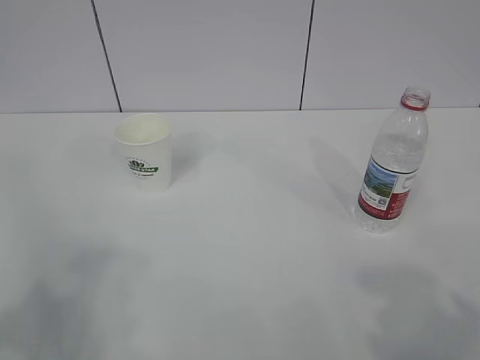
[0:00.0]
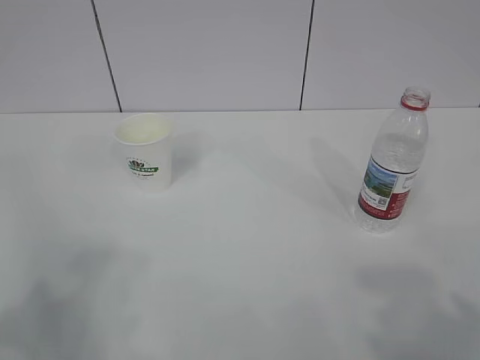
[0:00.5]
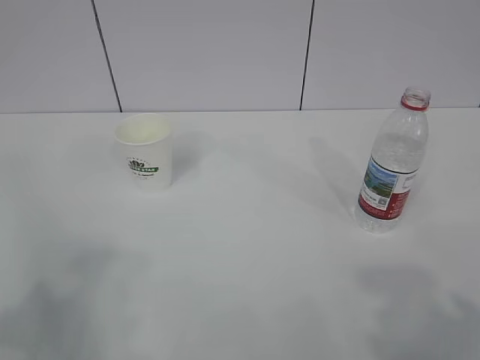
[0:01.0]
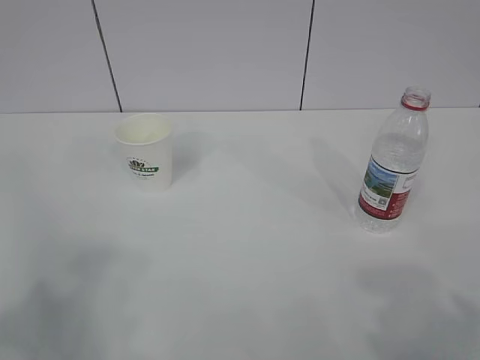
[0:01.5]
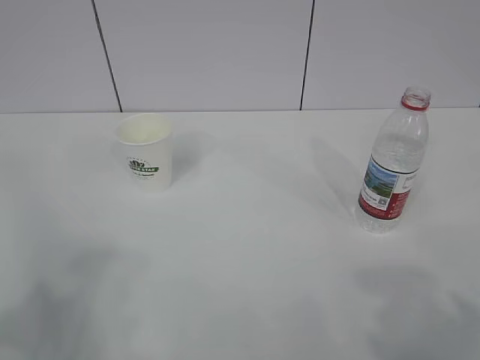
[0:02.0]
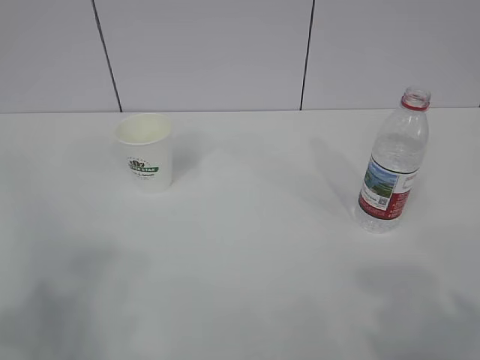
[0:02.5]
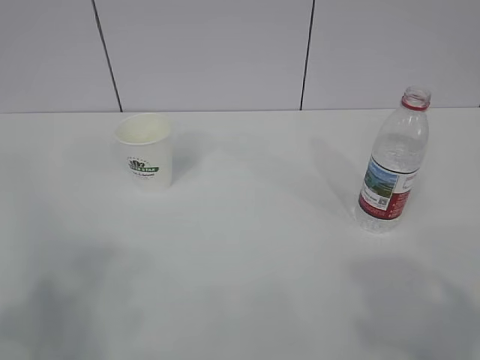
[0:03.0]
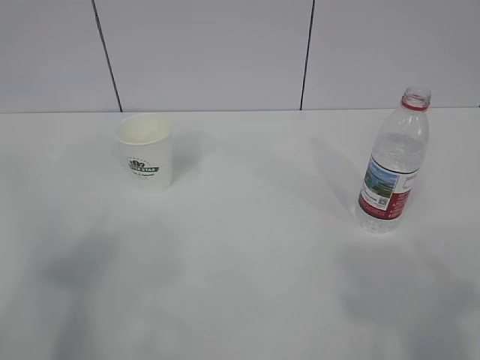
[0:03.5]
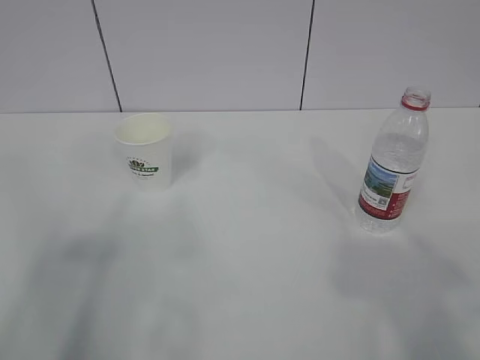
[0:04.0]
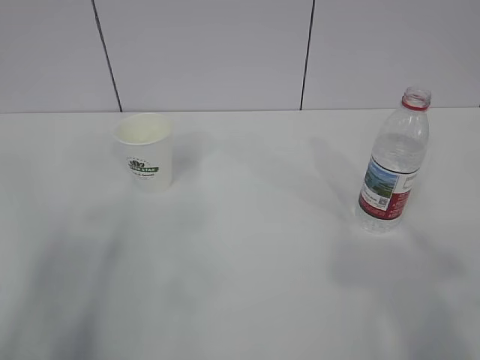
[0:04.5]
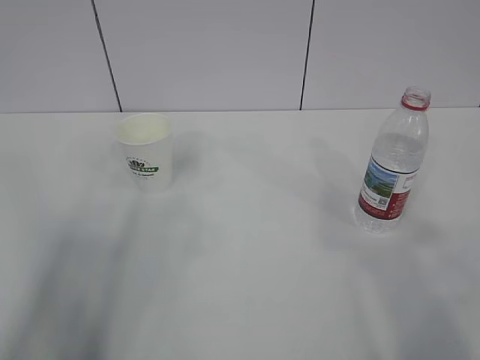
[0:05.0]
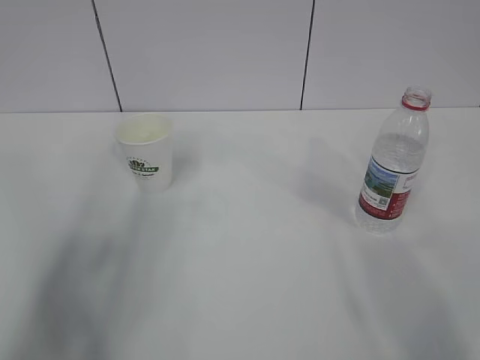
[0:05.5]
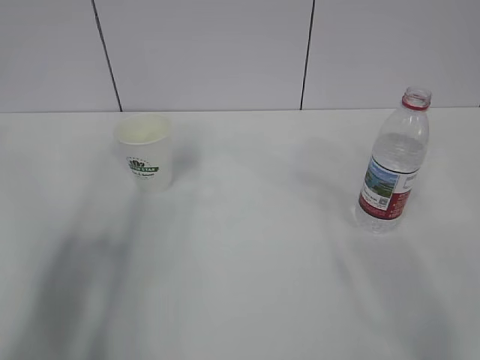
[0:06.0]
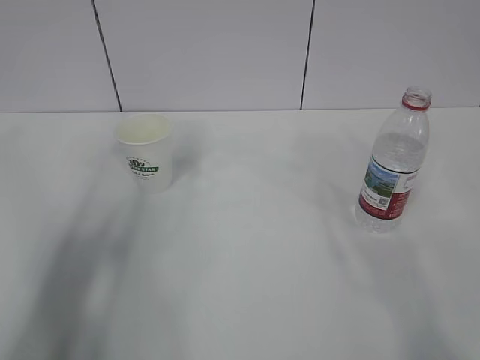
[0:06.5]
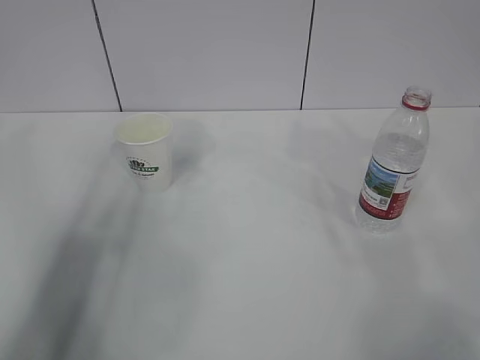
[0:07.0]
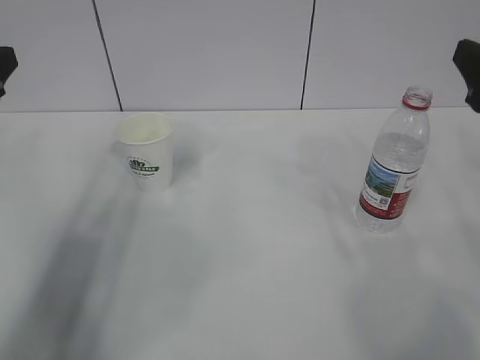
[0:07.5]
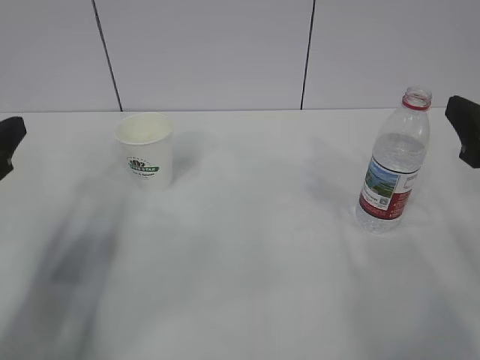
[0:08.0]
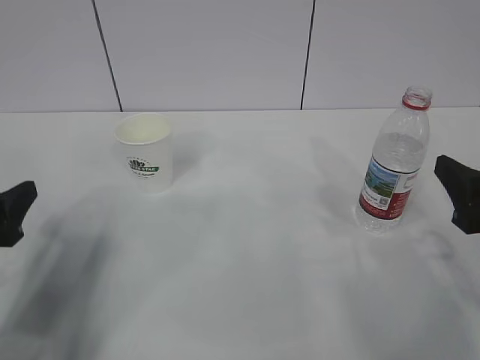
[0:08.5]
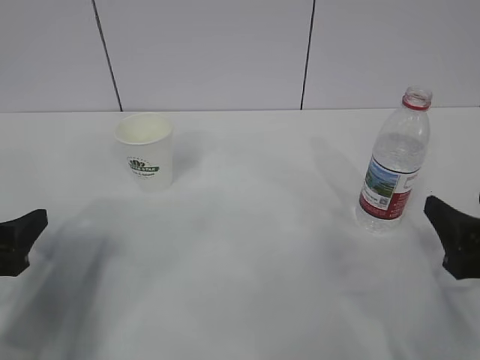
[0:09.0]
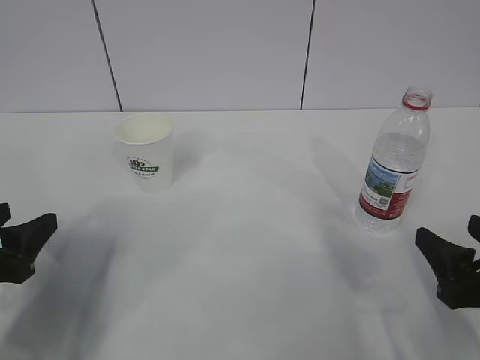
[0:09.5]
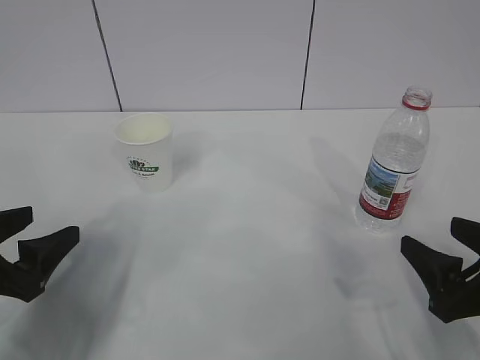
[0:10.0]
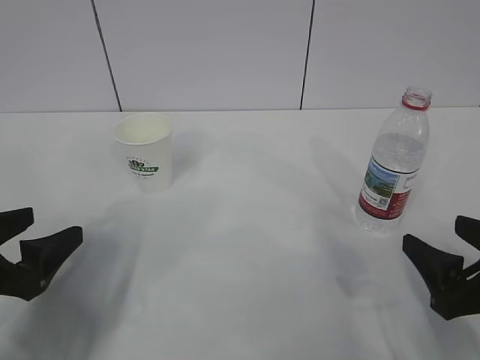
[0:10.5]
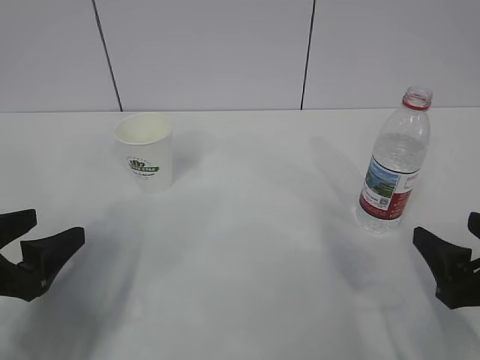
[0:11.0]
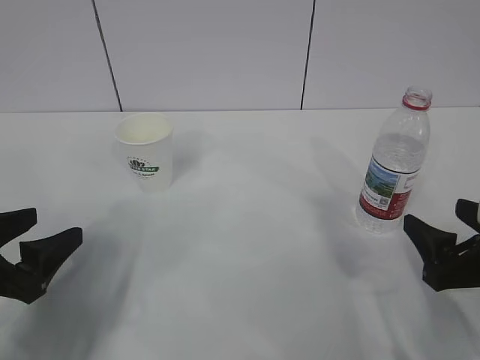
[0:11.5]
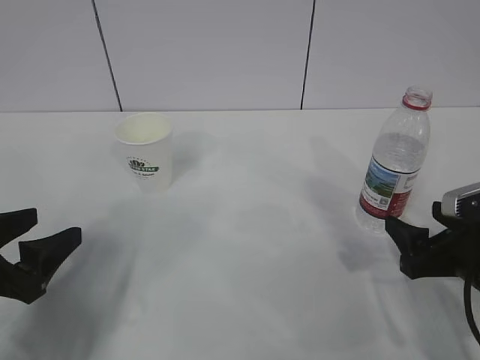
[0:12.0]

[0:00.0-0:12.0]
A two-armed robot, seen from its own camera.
0:04.0 to 0:06.0: The left gripper shifts about 20 cm forward.
0:06.0 to 0:08.0: The grippers both shift downward and forward by approximately 15 cm.
0:08.0 to 0:10.0: The right gripper travels downward and backward by roughly 10 cm, while the left gripper goes roughly 10 cm downward.
0:10.0 to 0:12.0: The right gripper moves forward, approximately 5 cm.

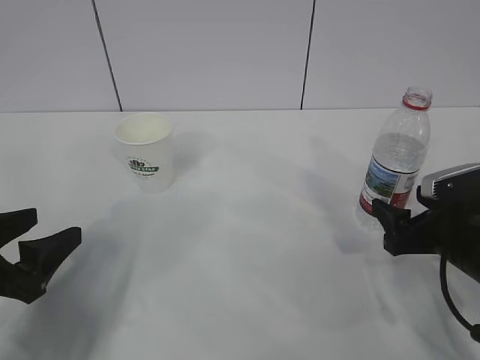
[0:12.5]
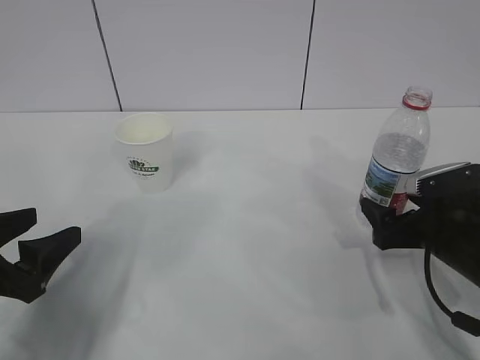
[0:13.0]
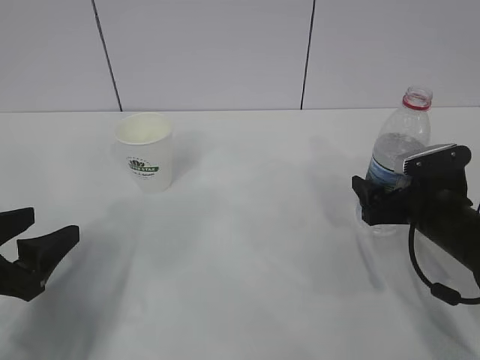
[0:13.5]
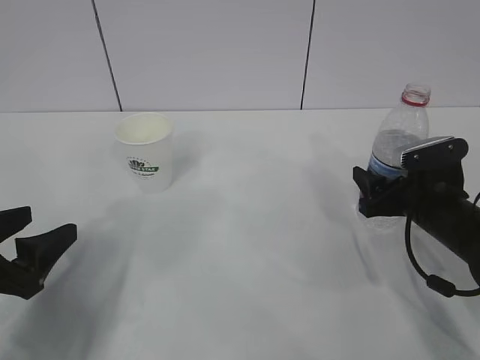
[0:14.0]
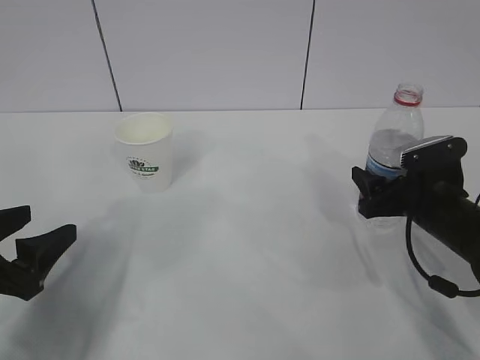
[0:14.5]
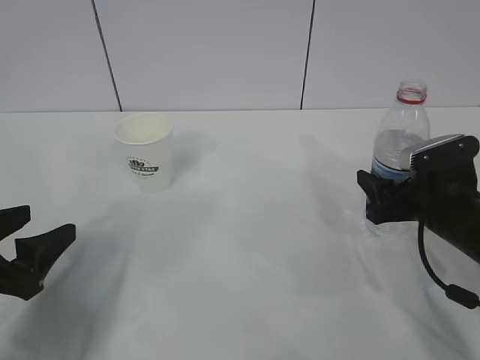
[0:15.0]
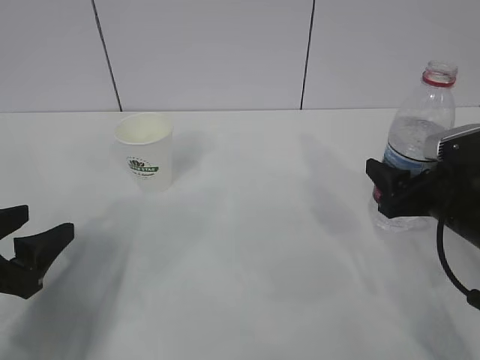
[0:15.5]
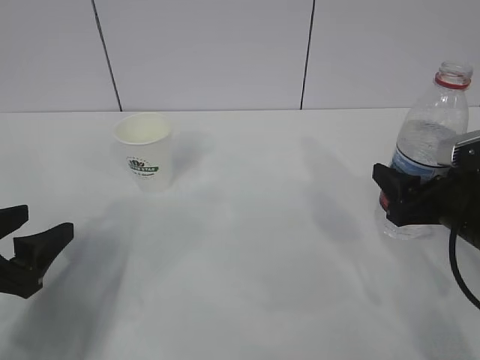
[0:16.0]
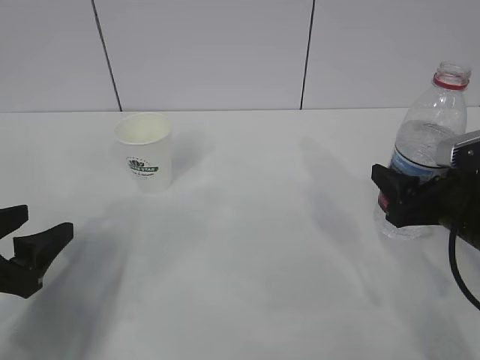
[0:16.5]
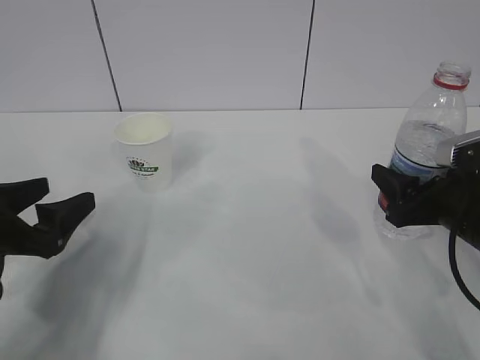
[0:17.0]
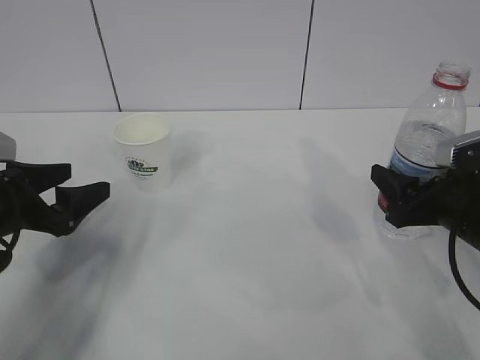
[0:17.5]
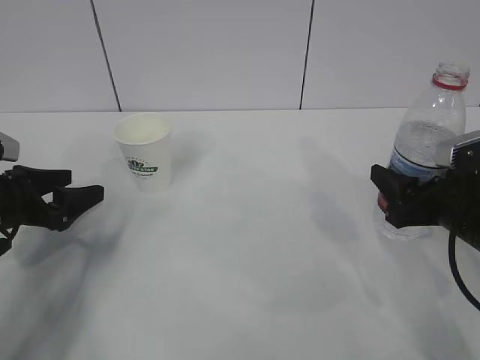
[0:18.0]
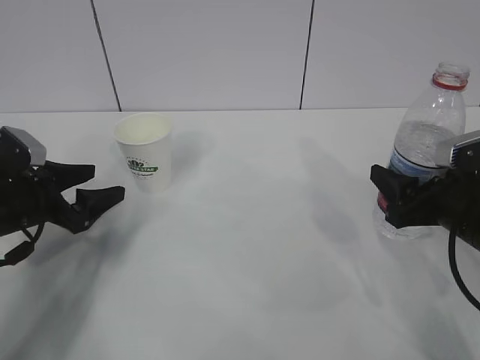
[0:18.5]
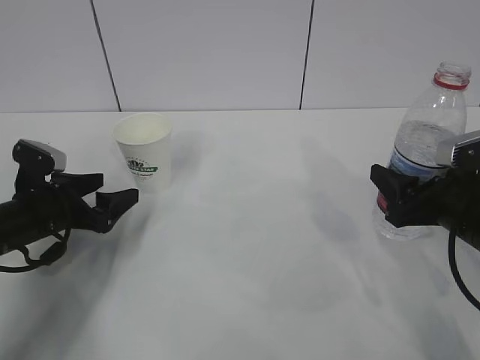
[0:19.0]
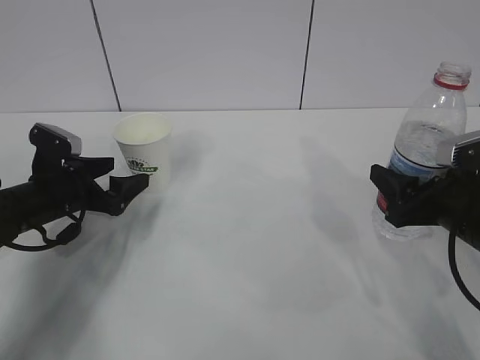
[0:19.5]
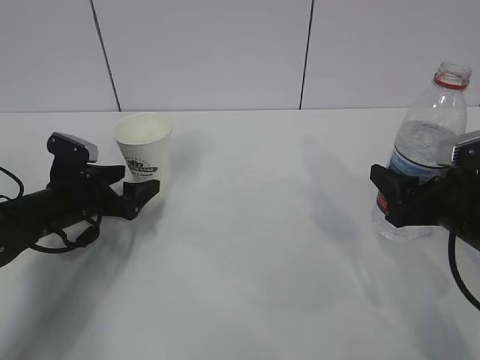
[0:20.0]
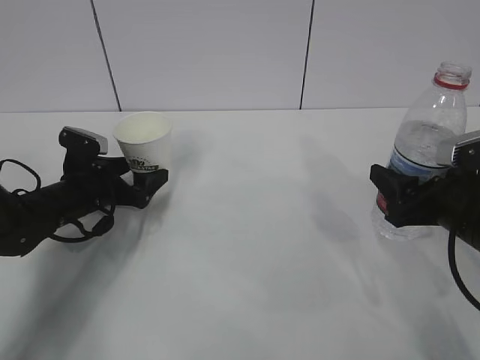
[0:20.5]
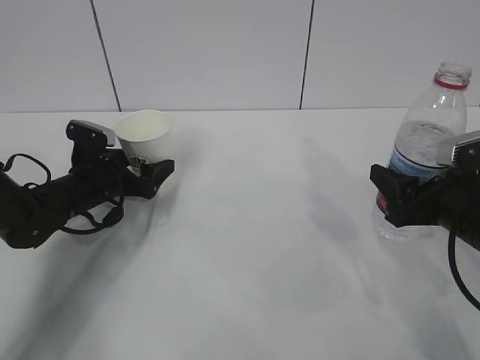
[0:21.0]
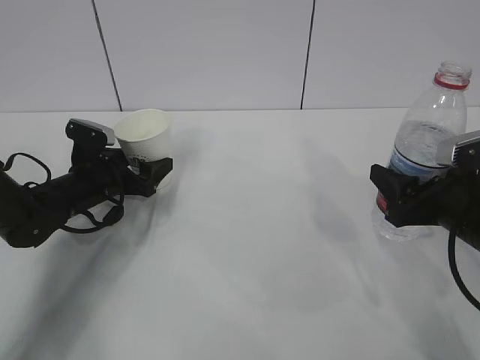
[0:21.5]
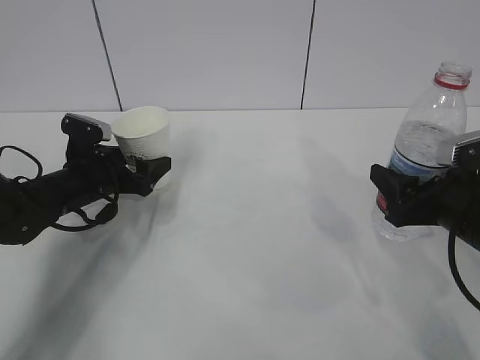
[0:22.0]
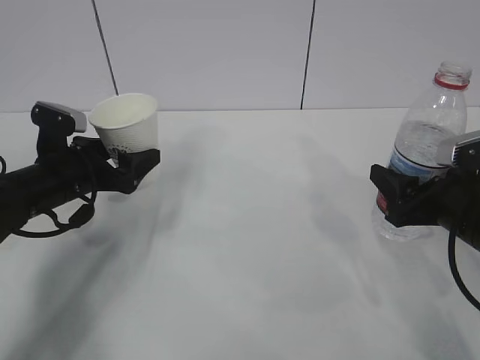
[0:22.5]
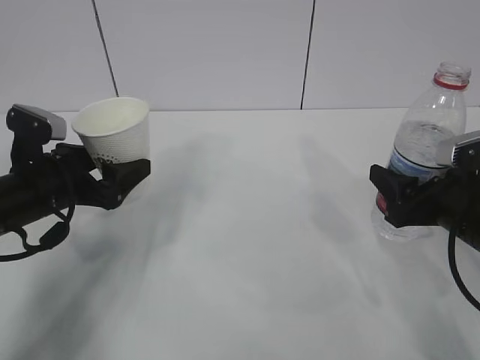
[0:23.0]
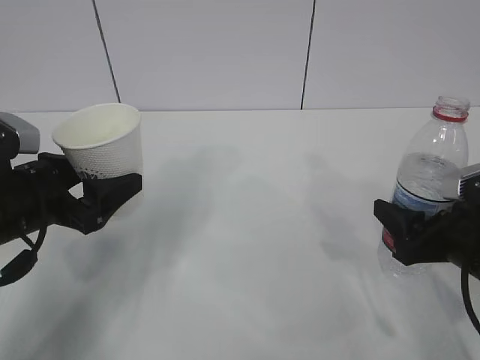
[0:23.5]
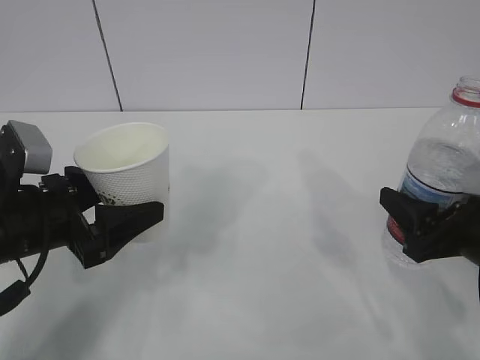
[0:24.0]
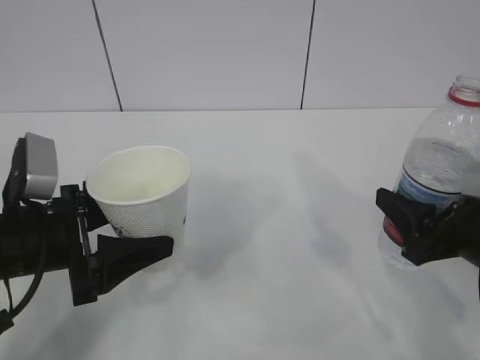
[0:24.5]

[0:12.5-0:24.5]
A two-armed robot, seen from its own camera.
0:12.5 to 0:14.5: The right gripper goes some 5 cm forward, and closes.
0:14.5 to 0:16.5: The right gripper goes roughly 10 cm backward and upward.
0:16.5 to 0:18.5: The left gripper travels forward by roughly 15 cm.
0:18.5 to 0:20.5: The left gripper moves forward and to the right, some 10 cm.
0:20.5 to 0:22.5: The left gripper moves upward, about 5 cm.
0:22.5 to 0:24.5: The left gripper goes about 10 cm backward.

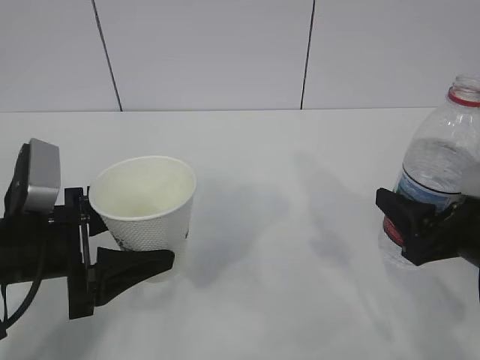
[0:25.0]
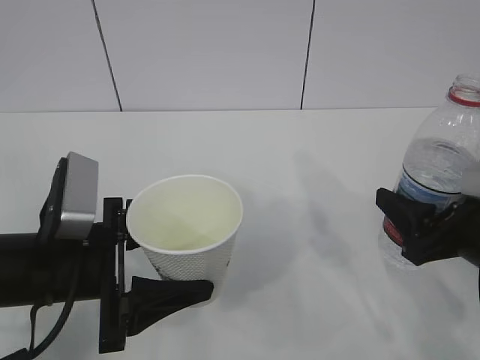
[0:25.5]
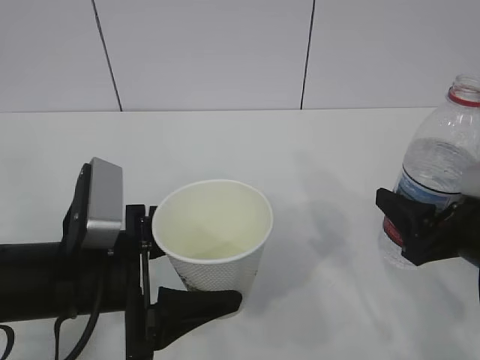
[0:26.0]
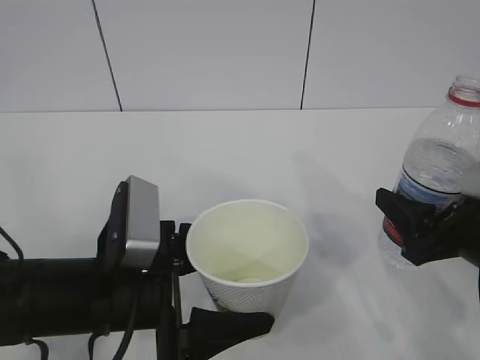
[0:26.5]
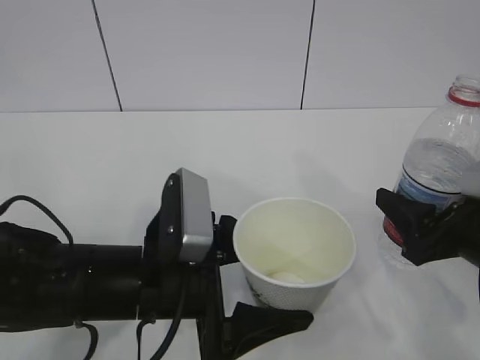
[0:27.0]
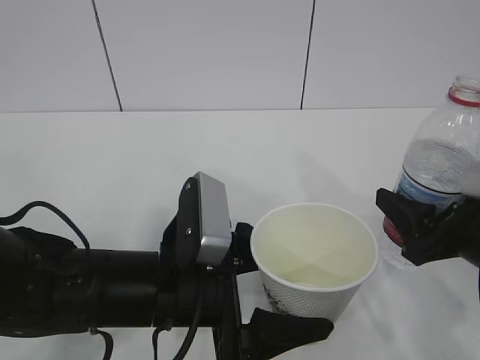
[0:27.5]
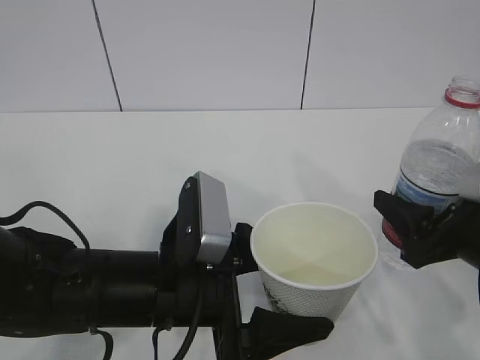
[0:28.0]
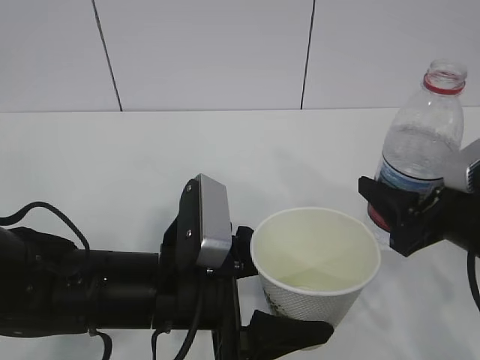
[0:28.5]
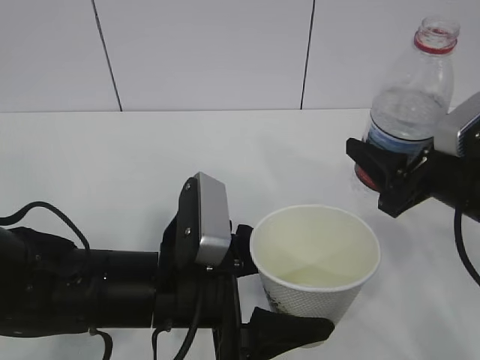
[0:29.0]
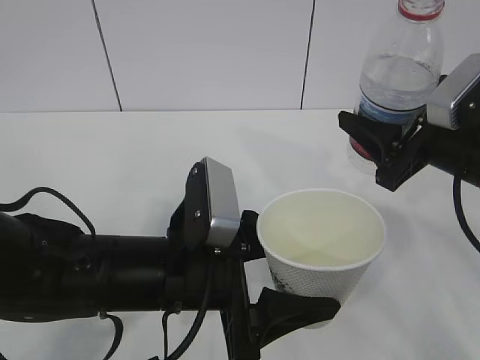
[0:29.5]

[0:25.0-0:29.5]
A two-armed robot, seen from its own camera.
0:25.0 to 0:27.0: The left gripper moves to the right, roughly 10 cm.
0:27.0 to 0:29.5: The right gripper shifts approximately 10 cm upward and forward.
